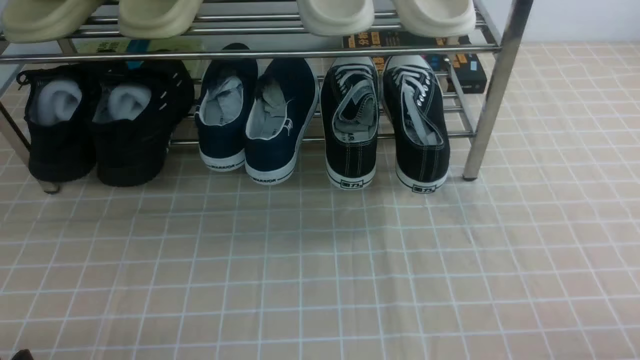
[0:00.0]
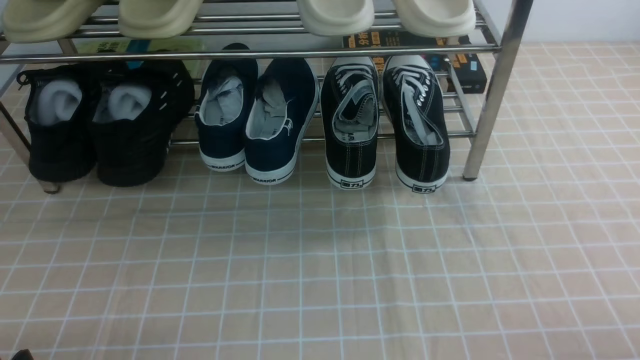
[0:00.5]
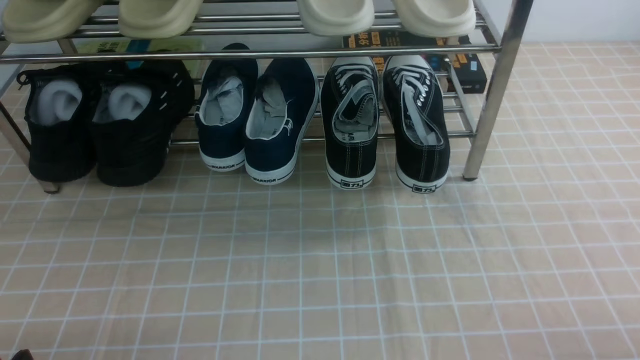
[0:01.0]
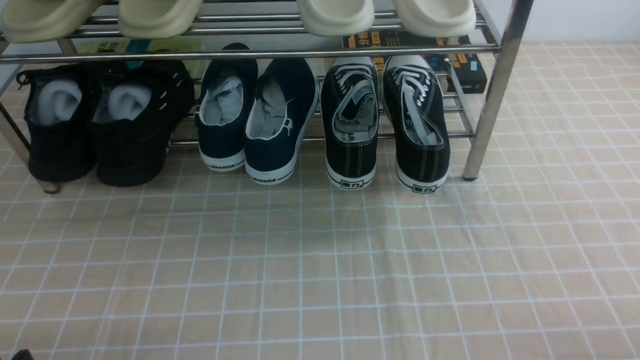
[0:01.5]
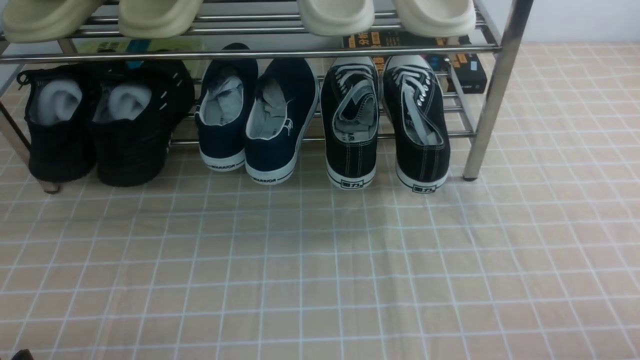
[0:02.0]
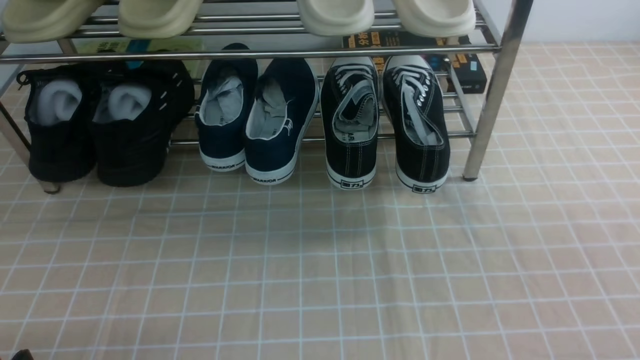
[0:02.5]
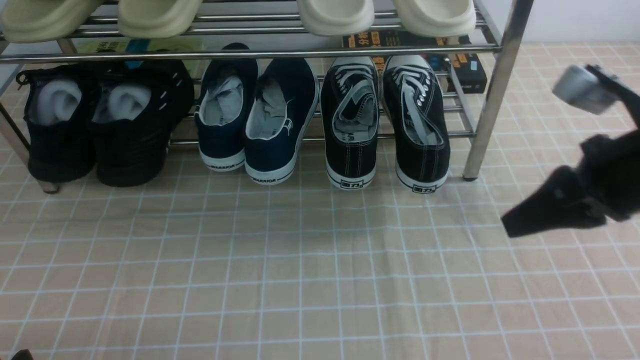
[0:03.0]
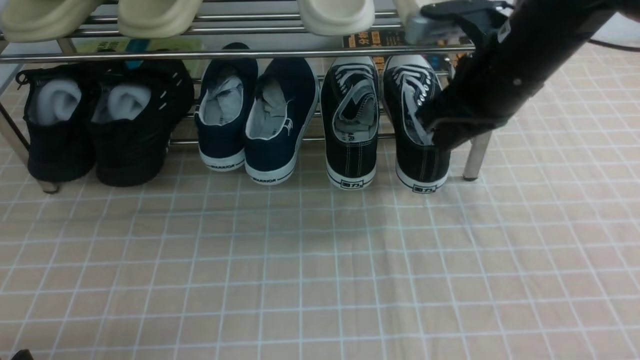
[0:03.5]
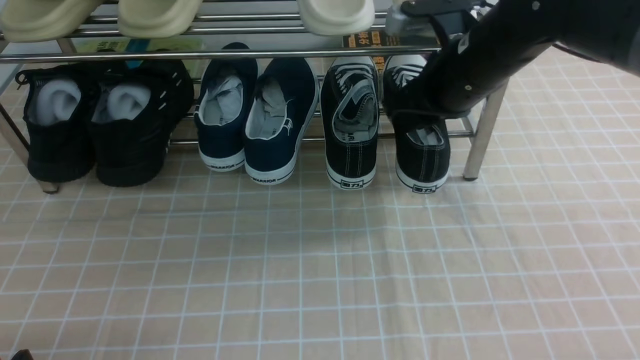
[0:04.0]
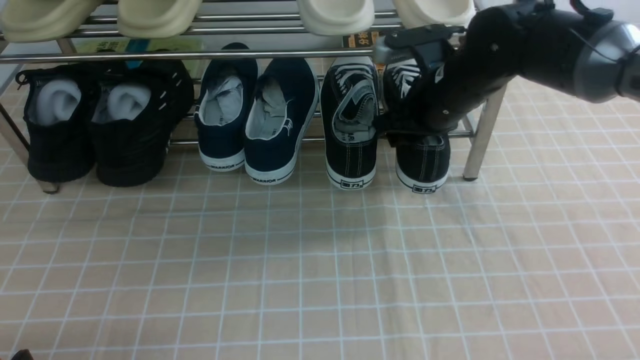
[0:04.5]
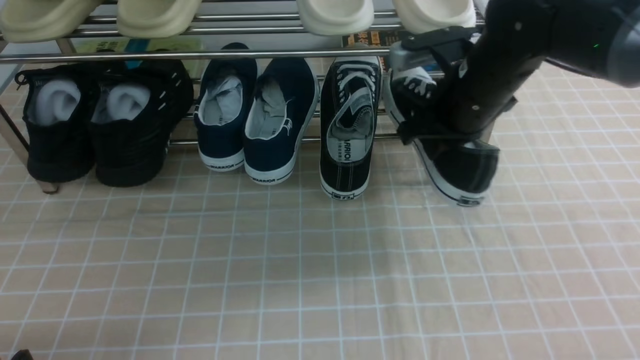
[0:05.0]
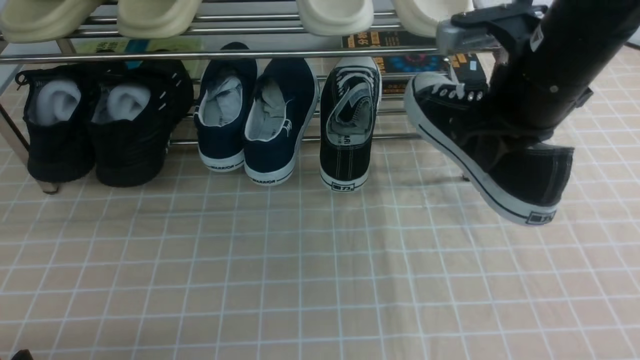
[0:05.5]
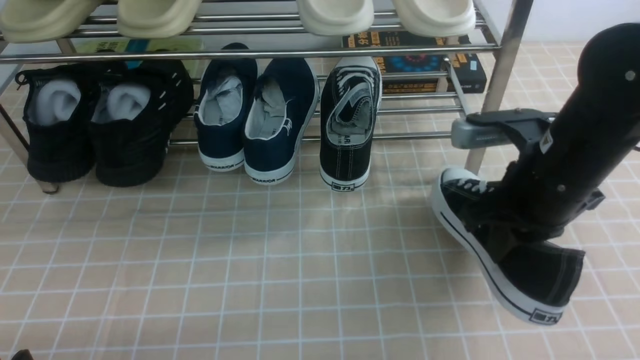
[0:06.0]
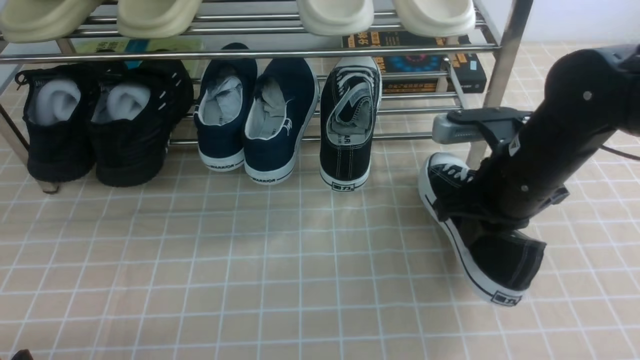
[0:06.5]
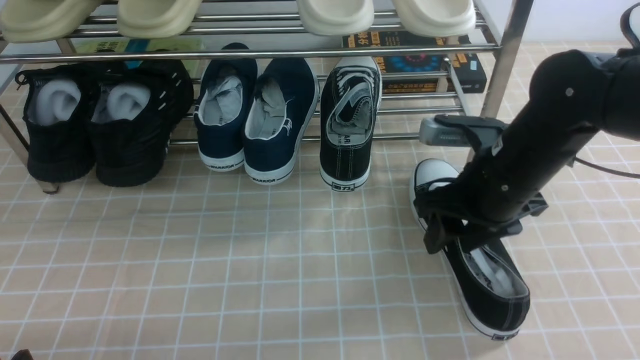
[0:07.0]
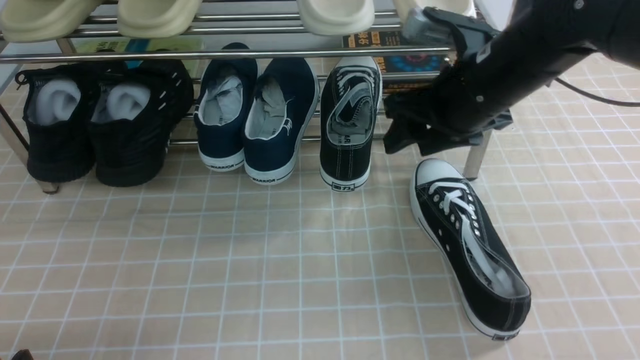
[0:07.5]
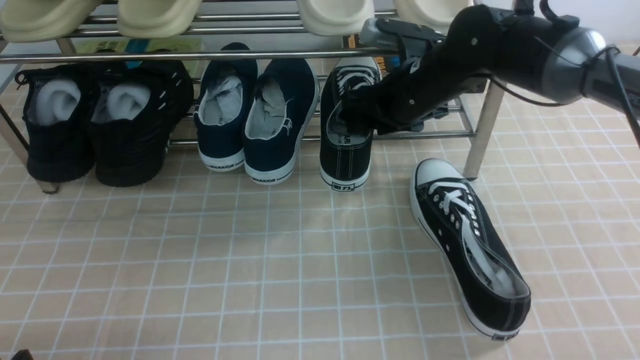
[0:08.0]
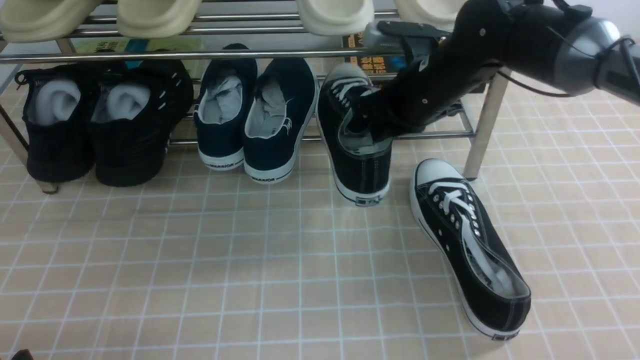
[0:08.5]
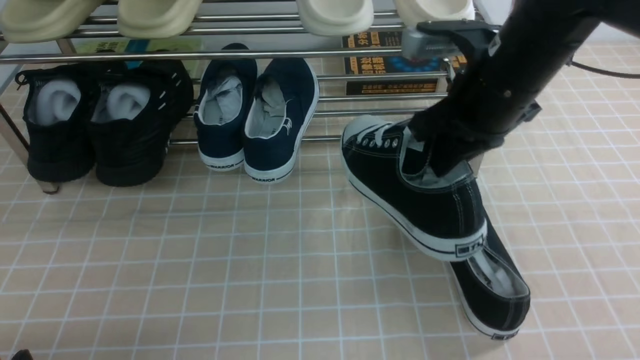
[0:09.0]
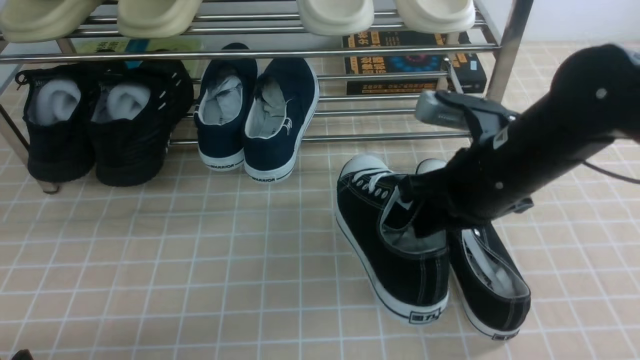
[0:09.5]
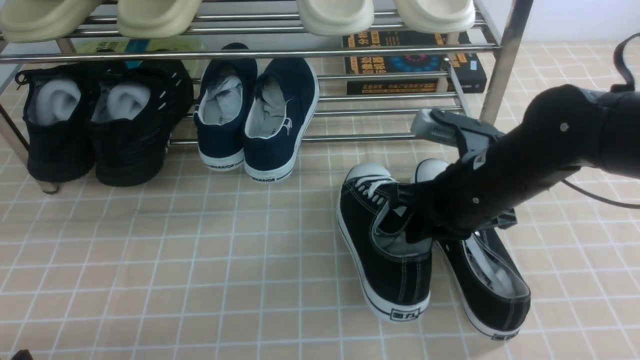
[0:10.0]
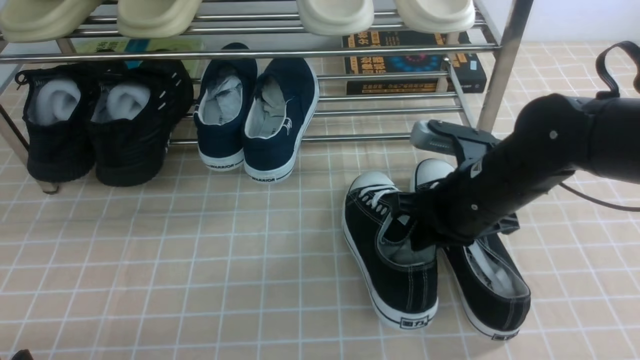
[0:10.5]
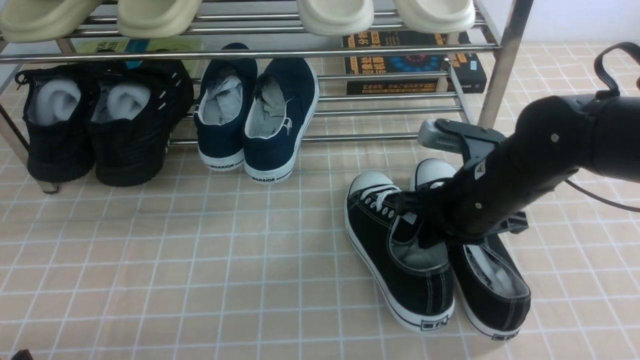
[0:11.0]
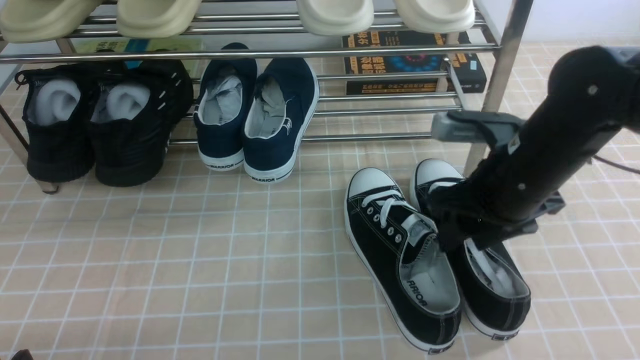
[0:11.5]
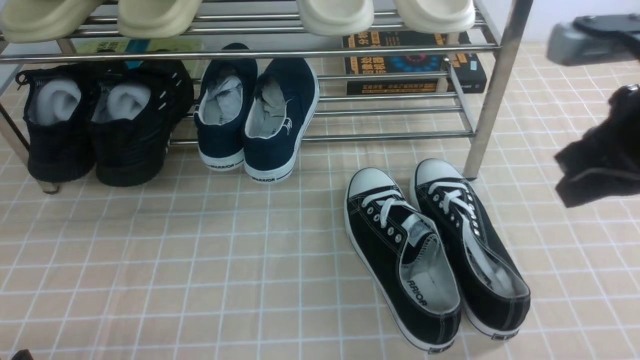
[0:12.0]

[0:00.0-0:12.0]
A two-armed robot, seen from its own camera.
Step, 0:00.0 to 0:04.5: use the right arm to clamp a shoe on the right side of the shoe rack.
Step, 0:05.0 to 0:07.0: use the right arm to take out the clamped shoe from the shoe rack and put it down.
Step, 0:07.5 to 0:08.0: use the right arm to clamp a shoe on the right side of the shoe rack.
Step, 0:08.5 to 0:11.0: use the right arm to take out the clamped shoe from the shoe rack and put it down.
0:02.0 to 0:04.0: The right gripper goes about 40 cm forward and to the left, and closes, then opens again.
0:04.0 to 0:06.0: The right gripper shifts roughly 10 cm backward, and closes.
0:06.0 to 0:08.0: The right gripper travels forward and to the left by some 15 cm, and opens.
0:08.0 to 0:10.0: The right gripper heads backward, covering approximately 15 cm, and closes.
0:10.0 to 0:12.0: The right gripper travels upward, backward and to the right by roughly 20 cm, and opens, then closes again.
